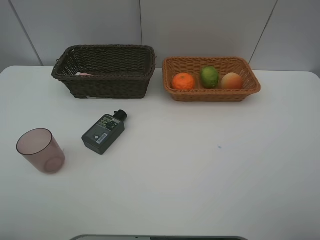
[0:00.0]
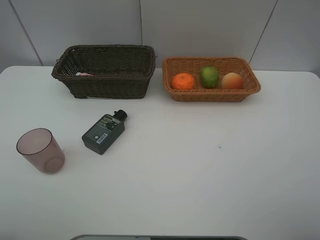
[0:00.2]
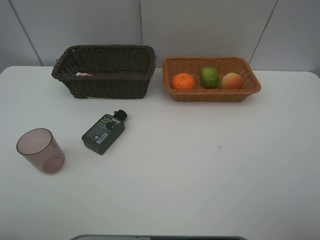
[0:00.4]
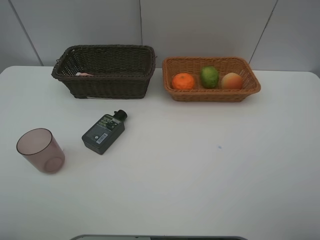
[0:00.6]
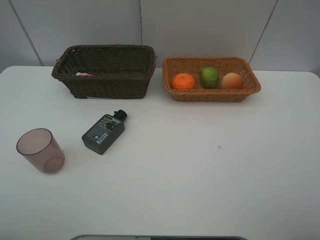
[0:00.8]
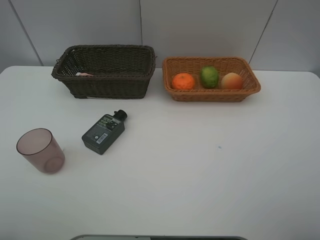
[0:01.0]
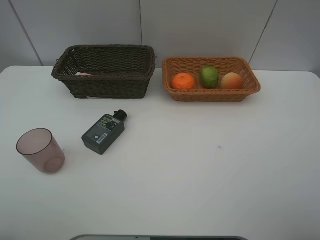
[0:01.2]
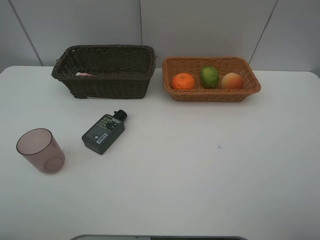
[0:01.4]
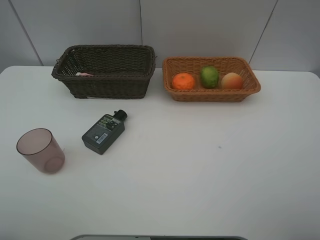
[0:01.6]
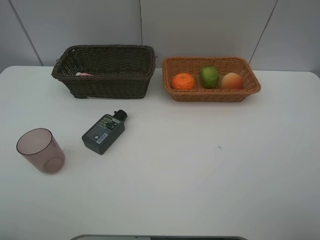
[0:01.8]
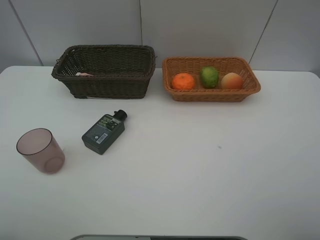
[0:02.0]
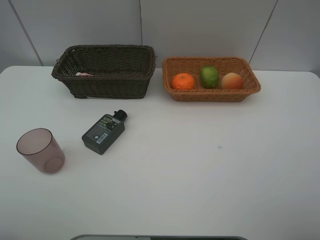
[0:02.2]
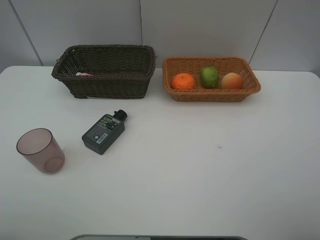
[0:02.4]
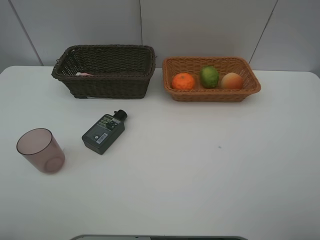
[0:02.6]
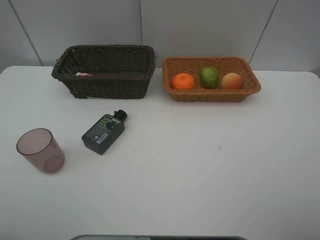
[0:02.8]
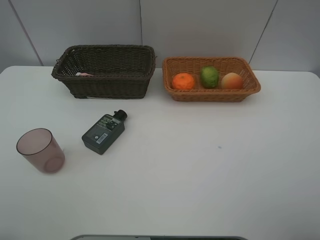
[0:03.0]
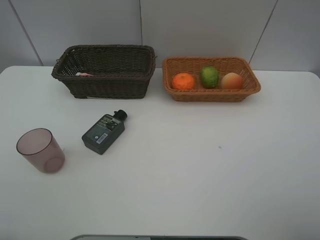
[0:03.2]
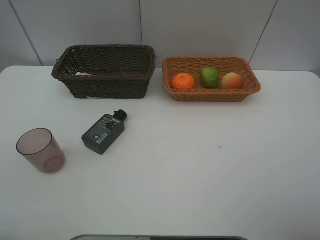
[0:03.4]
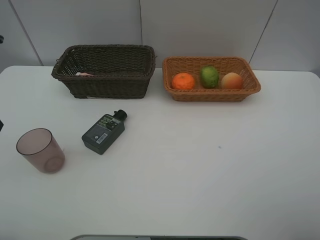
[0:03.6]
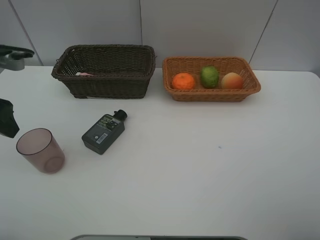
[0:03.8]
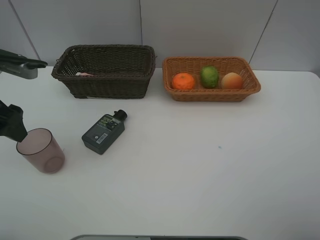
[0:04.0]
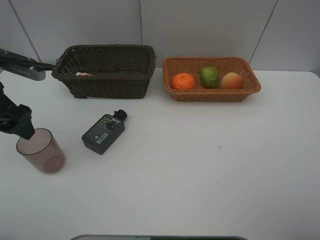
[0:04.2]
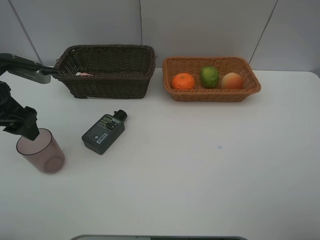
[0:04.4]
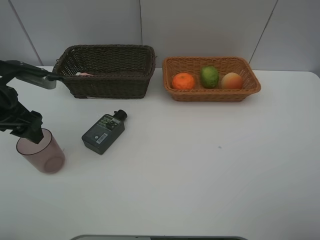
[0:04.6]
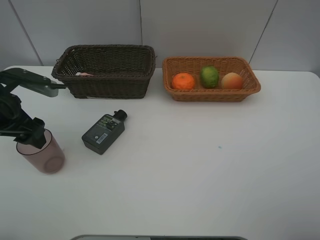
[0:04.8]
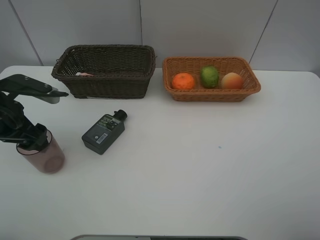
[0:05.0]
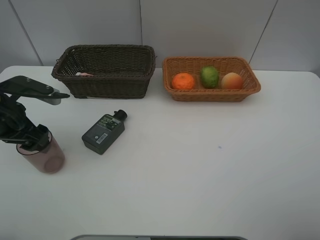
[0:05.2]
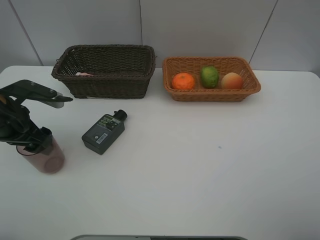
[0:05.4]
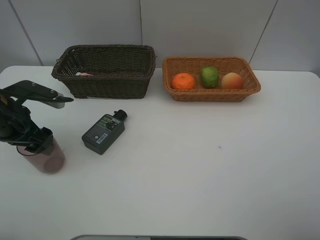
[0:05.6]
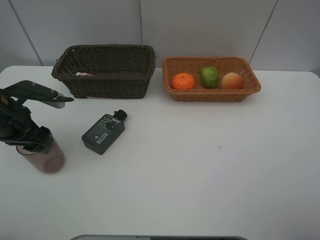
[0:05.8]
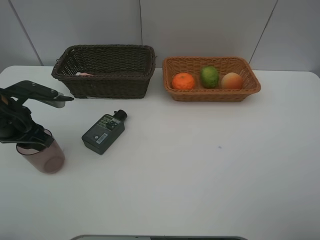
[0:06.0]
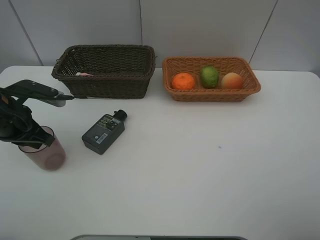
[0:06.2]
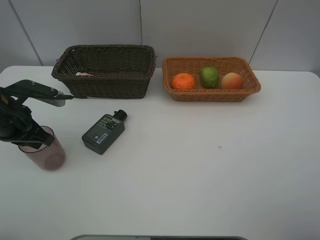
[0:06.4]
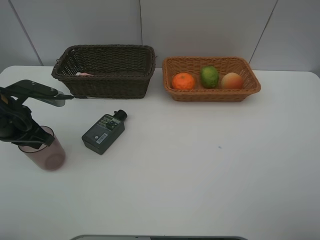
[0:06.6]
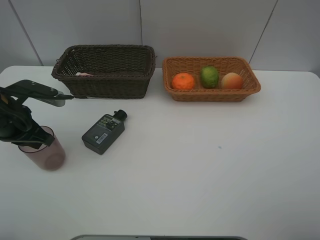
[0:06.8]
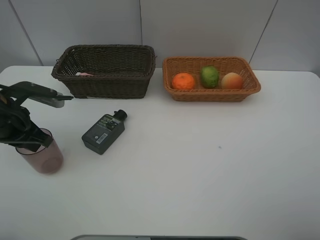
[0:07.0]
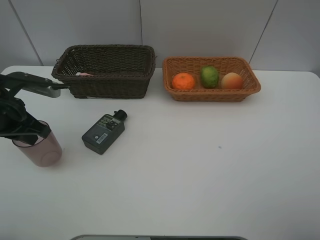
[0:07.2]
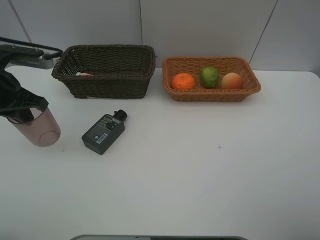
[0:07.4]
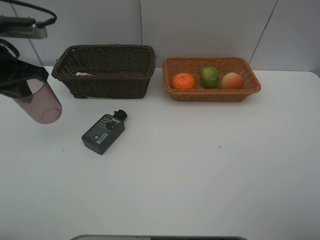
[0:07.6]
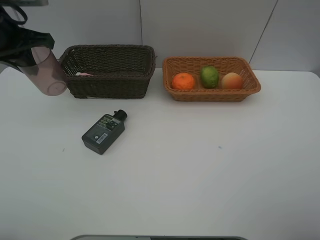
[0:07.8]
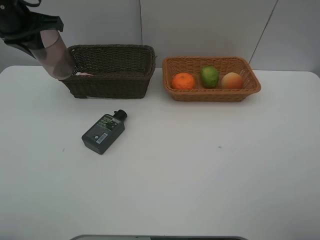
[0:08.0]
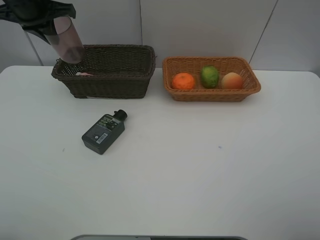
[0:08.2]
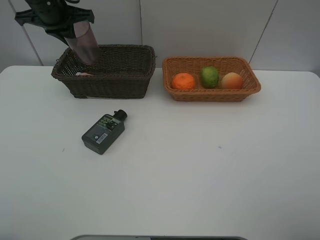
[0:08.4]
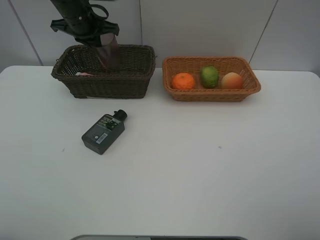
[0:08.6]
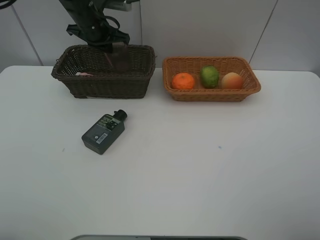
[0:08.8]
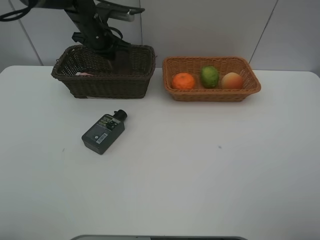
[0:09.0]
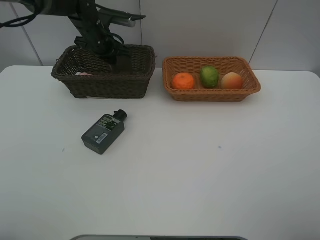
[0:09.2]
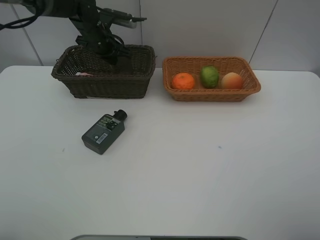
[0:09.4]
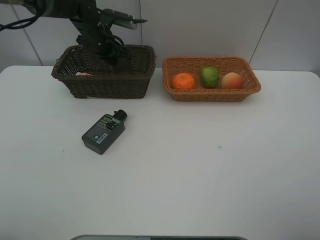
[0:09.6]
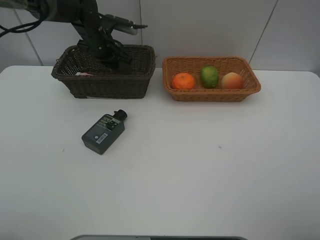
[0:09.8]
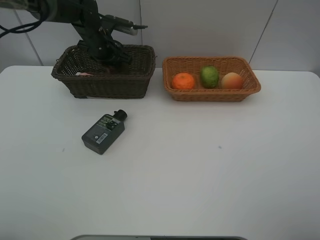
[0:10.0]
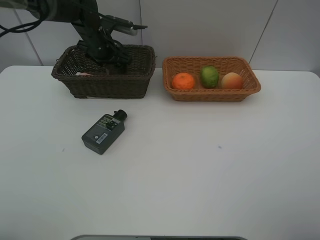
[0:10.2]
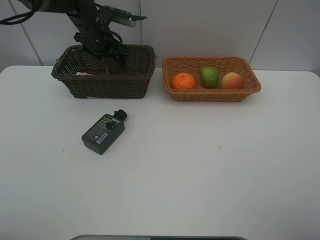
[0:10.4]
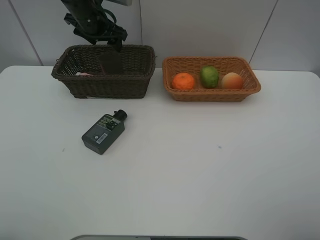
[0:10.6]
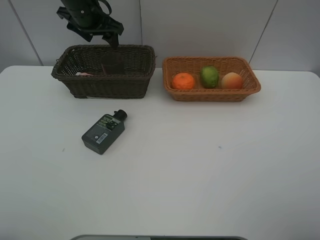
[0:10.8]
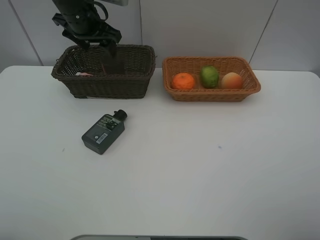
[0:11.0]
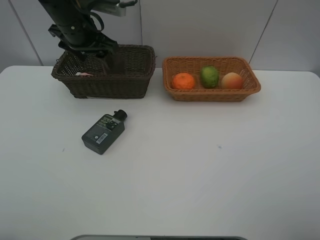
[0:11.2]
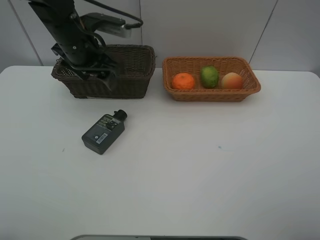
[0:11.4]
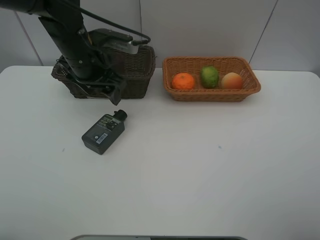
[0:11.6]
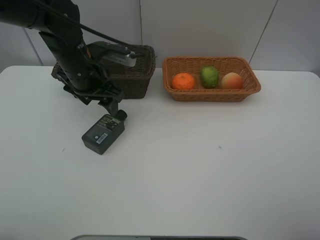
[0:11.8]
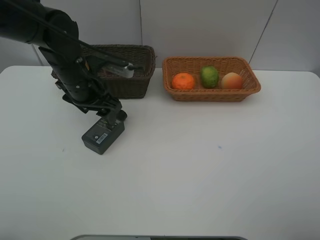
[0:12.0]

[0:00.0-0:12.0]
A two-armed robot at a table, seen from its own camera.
Task of the whole recording: place multiple objects separately in different baskets.
0:00.0 to 0:01.6: Both grippers stay put.
0:03.0 to 0:04.4: The left gripper is displaced forward and downward by some 20 cm.
0:04.4 to 0:06.0: The left gripper shifts some 5 cm downward, and closes its fingers.
0:06.0 to 0:07.6: The left gripper moves upward, some 10 cm.
0:07.6 to 0:09.0: The left gripper goes about 25 cm forward and to the right.
0:09.0 to 0:10.4: The left gripper opens its fingers.
0:10.4 to 0:12.0: The left gripper goes roughly 15 cm backward.

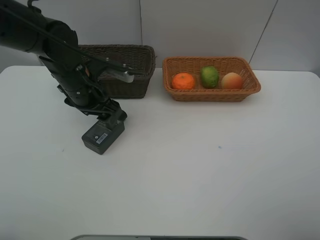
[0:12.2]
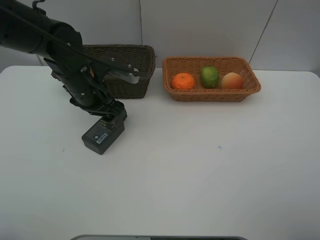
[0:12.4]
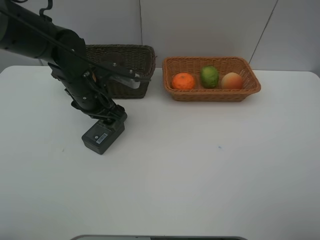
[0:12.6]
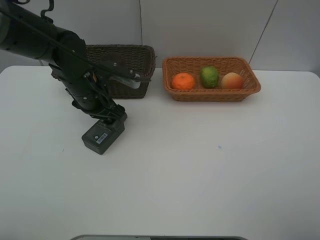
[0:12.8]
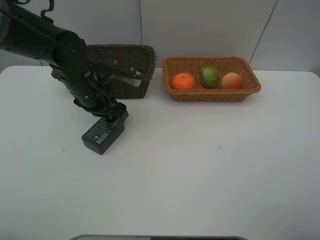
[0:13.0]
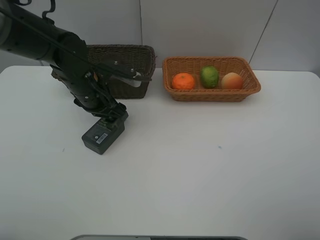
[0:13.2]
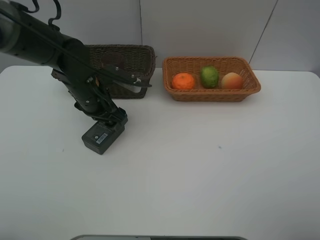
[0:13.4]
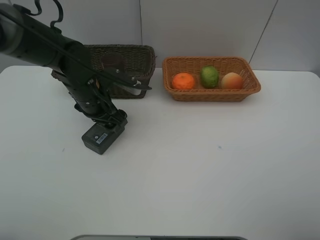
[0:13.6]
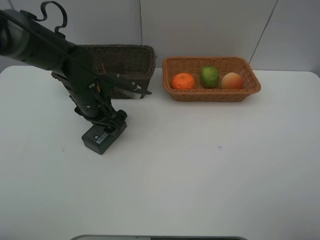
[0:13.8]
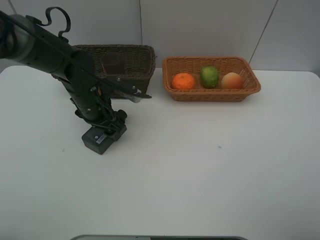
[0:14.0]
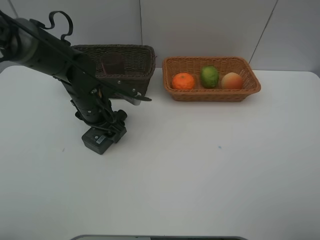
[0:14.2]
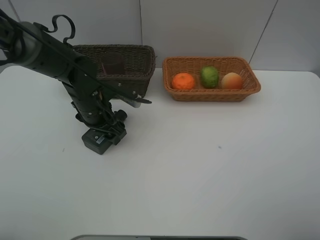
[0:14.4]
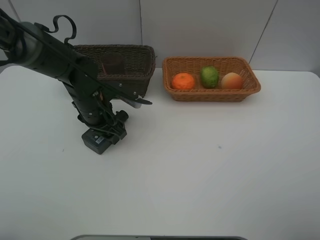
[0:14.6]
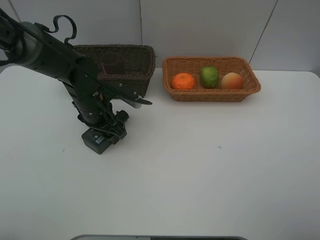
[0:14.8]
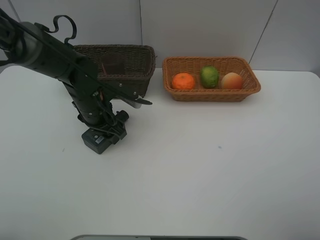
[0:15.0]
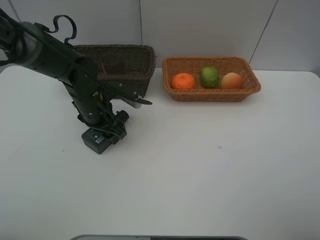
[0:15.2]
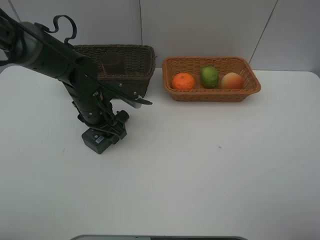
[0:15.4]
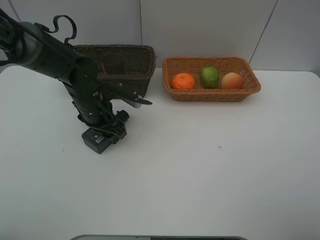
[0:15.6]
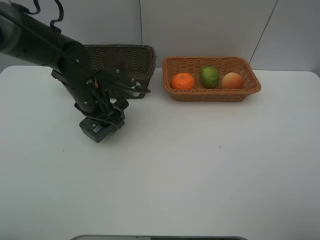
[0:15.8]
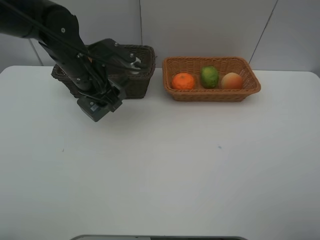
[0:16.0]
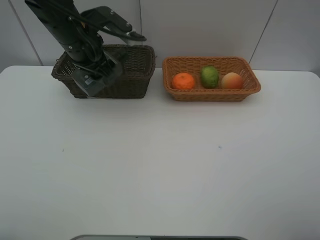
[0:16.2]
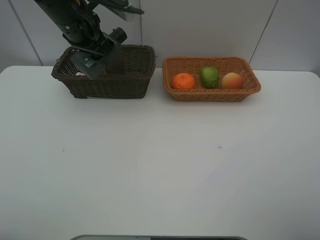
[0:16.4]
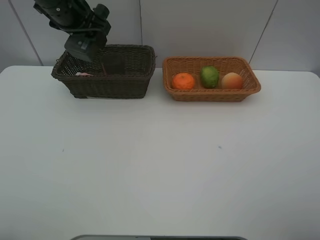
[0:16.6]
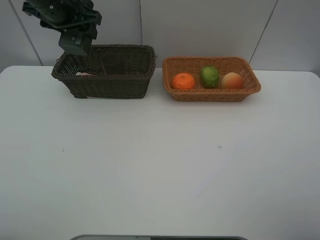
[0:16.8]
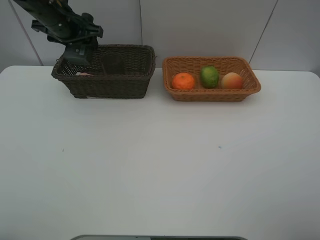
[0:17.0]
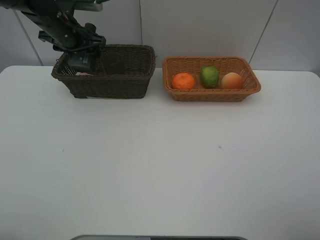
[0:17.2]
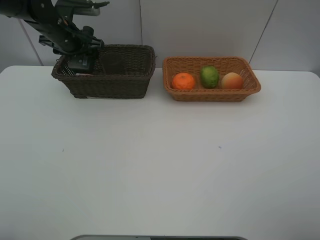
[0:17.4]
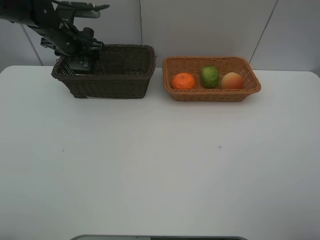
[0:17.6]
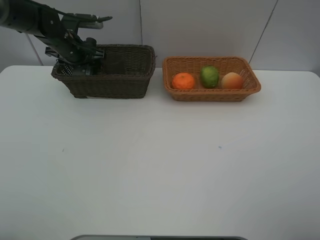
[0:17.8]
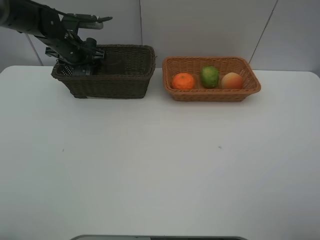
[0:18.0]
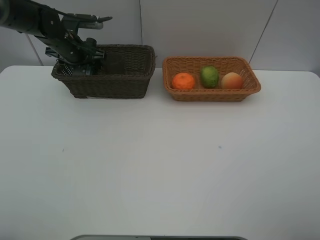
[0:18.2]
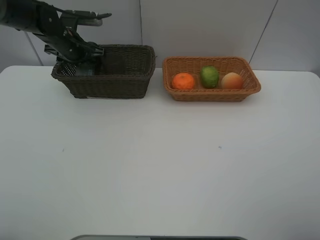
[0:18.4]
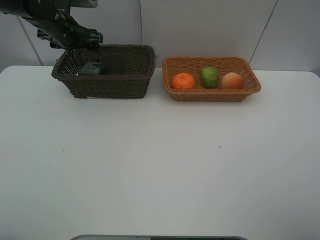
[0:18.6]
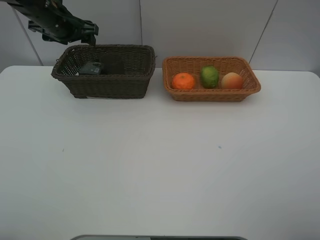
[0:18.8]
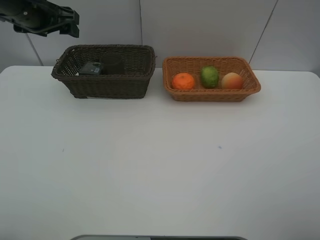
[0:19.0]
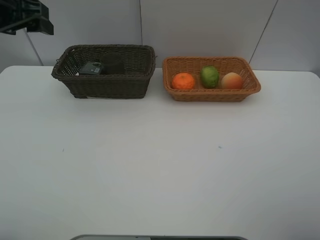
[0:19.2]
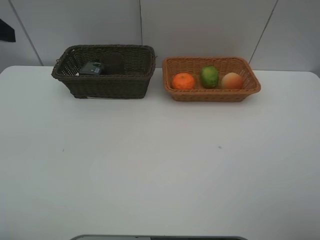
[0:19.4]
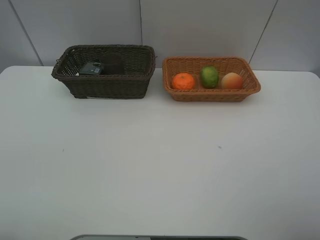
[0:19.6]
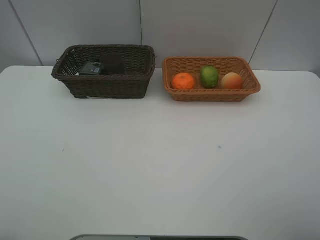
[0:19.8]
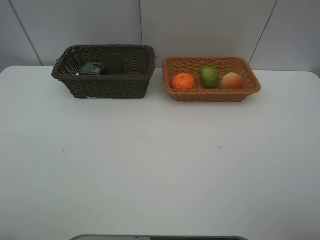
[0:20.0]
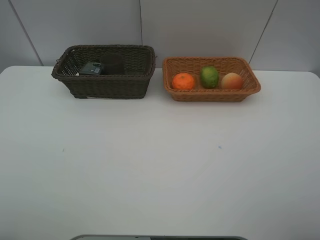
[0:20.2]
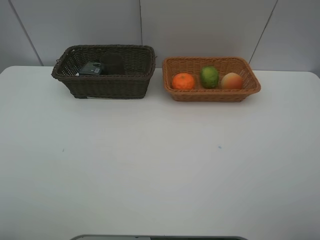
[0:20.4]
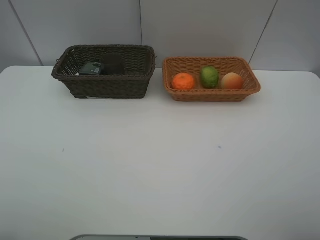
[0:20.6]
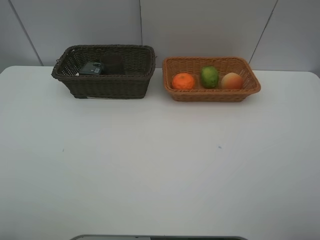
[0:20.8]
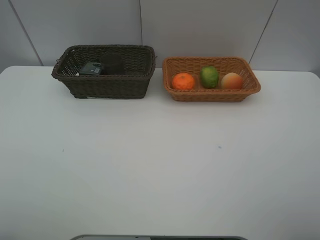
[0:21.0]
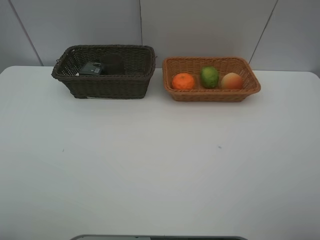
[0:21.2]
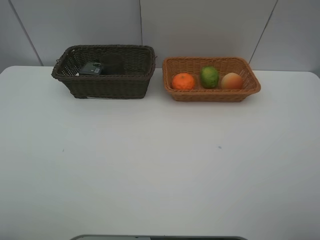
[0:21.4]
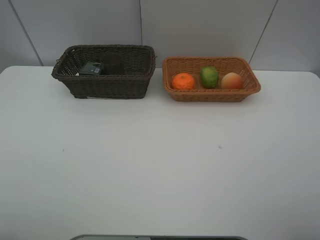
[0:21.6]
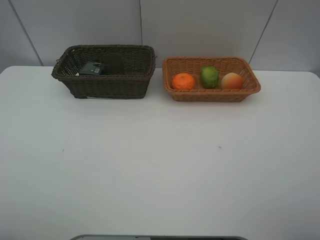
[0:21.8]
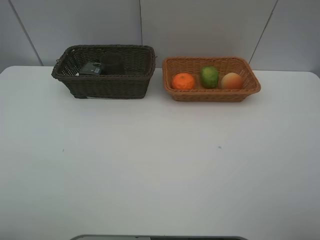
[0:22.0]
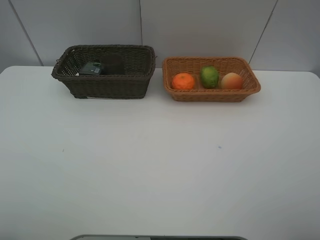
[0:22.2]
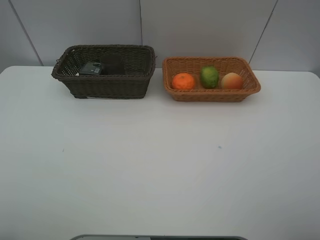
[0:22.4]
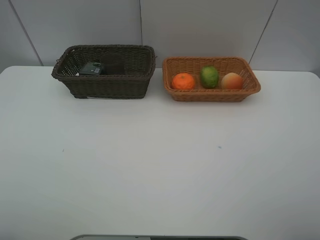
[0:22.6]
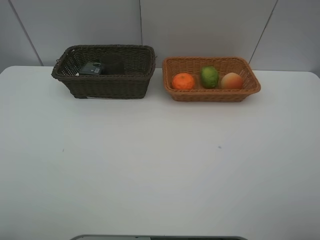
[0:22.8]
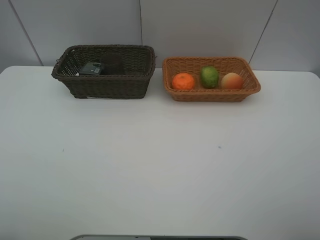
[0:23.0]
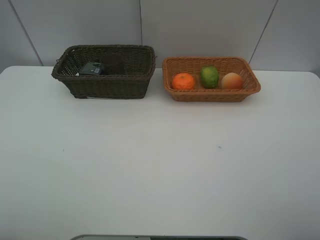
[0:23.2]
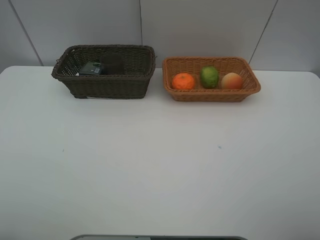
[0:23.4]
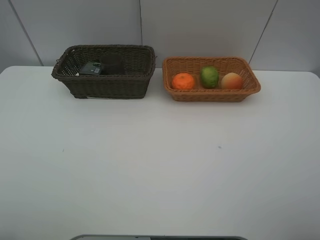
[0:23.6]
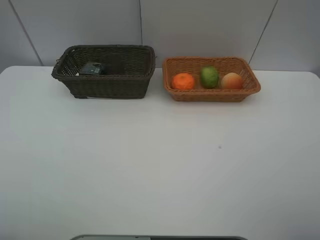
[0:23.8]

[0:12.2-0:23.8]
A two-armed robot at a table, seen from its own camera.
Task of the whole recording: place multiple objects separately in different baskets.
0:12.2 to 0:15.0: The grippers move only a little.
0:15.0 to 0:16.6: The left gripper shifts some 20 cm upward and forward.
0:16.6 to 0:18.0: The left gripper shifts about 15 cm downward and forward.
0:18.0 to 0:19.4: The left gripper is displaced backward and upward by some 30 cm.
0:21.0 to 0:23.8: Neither gripper changes place.
